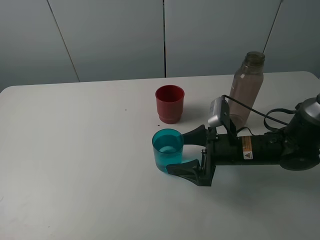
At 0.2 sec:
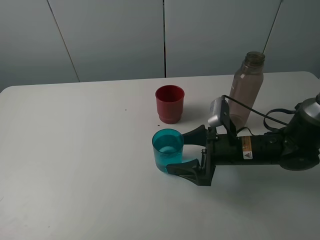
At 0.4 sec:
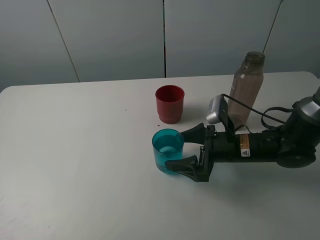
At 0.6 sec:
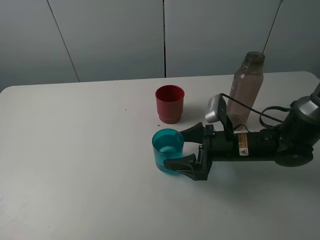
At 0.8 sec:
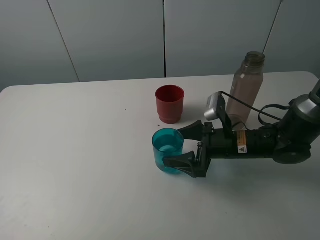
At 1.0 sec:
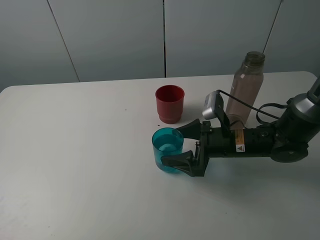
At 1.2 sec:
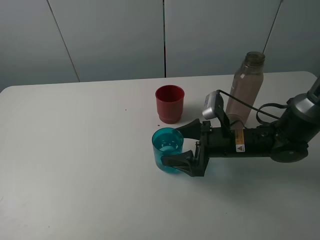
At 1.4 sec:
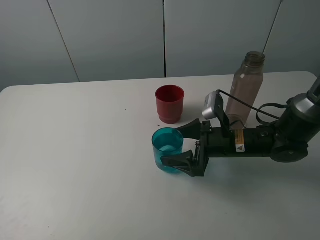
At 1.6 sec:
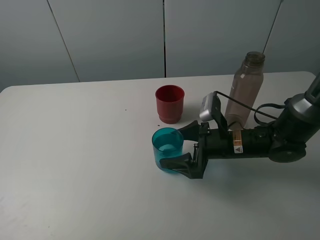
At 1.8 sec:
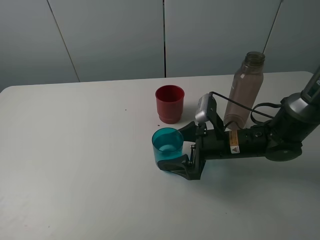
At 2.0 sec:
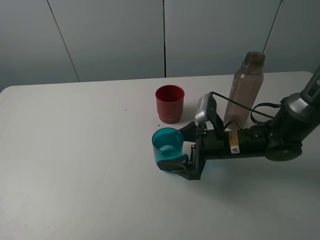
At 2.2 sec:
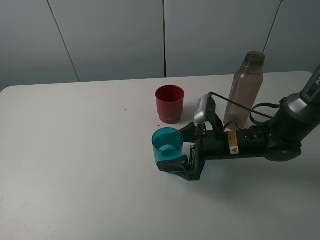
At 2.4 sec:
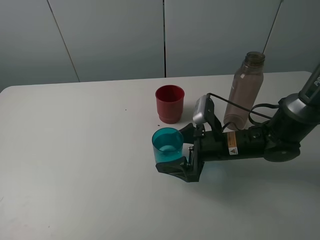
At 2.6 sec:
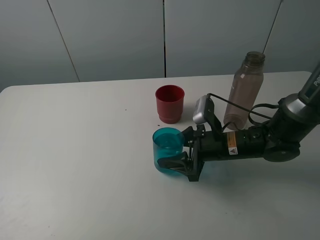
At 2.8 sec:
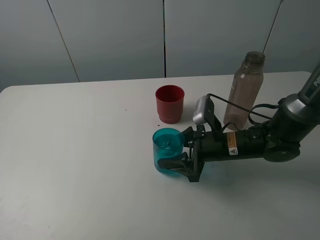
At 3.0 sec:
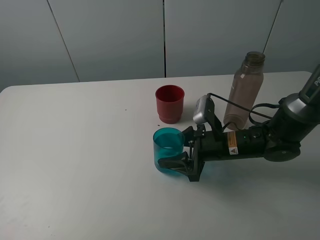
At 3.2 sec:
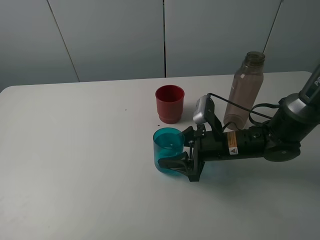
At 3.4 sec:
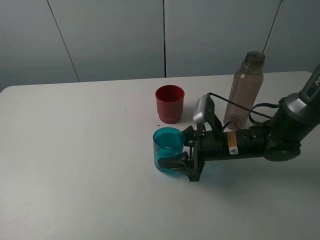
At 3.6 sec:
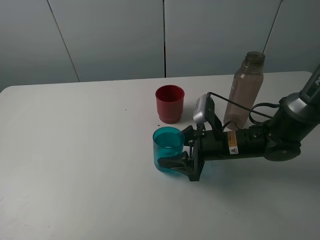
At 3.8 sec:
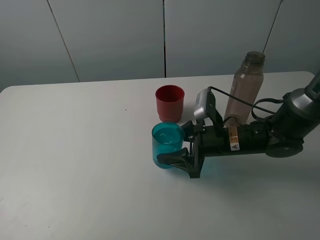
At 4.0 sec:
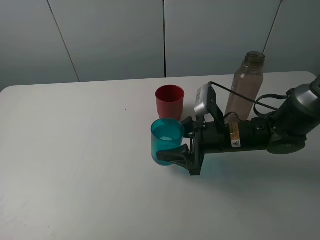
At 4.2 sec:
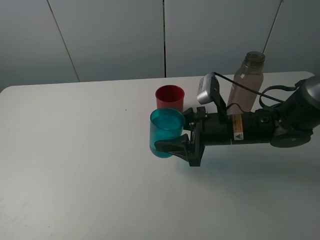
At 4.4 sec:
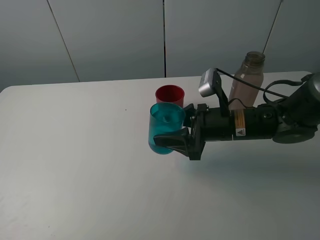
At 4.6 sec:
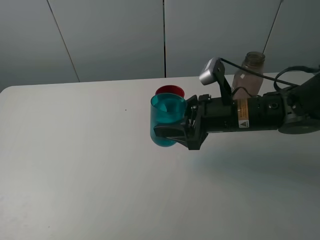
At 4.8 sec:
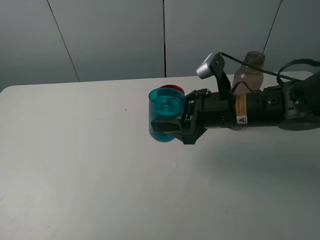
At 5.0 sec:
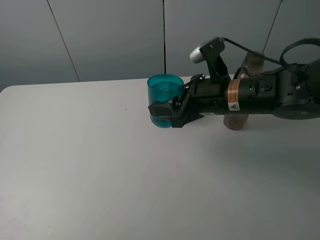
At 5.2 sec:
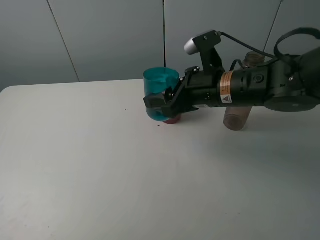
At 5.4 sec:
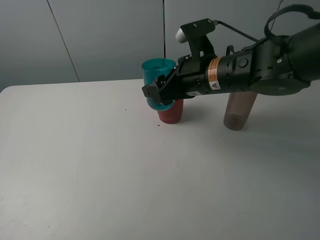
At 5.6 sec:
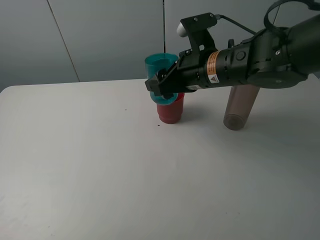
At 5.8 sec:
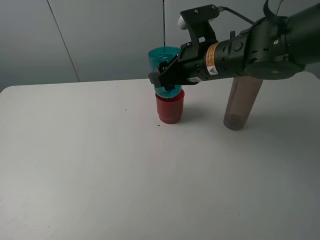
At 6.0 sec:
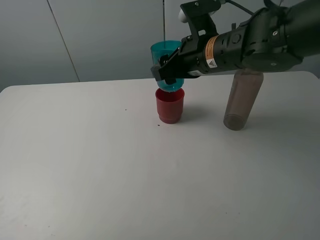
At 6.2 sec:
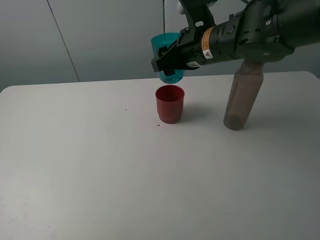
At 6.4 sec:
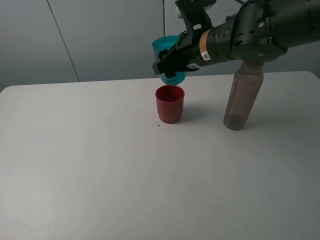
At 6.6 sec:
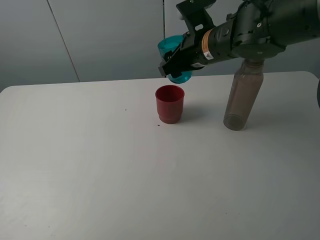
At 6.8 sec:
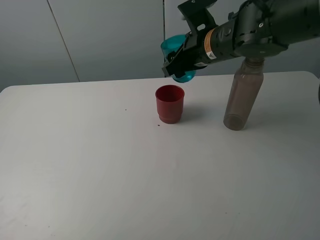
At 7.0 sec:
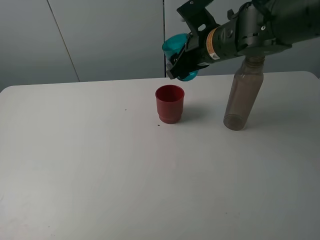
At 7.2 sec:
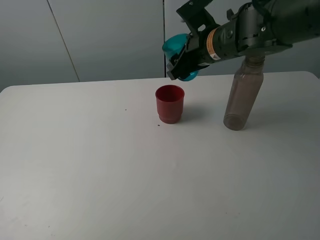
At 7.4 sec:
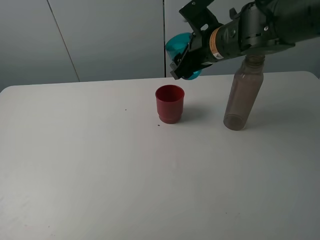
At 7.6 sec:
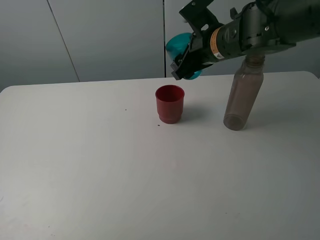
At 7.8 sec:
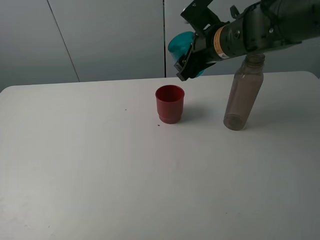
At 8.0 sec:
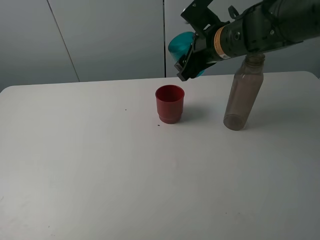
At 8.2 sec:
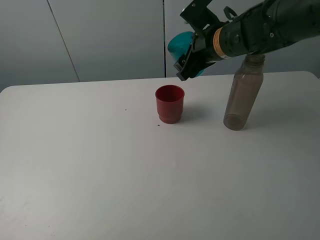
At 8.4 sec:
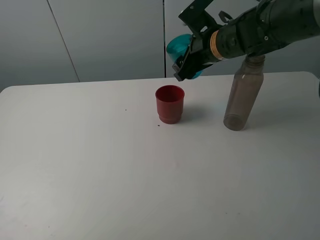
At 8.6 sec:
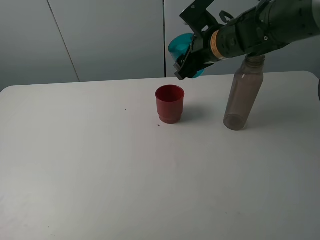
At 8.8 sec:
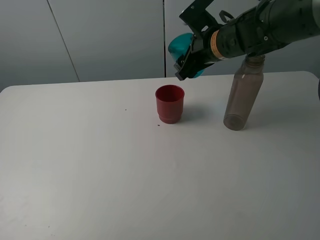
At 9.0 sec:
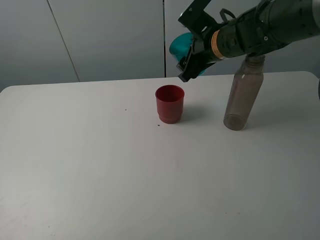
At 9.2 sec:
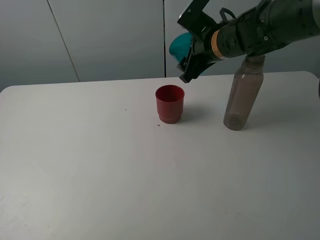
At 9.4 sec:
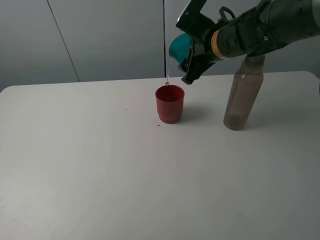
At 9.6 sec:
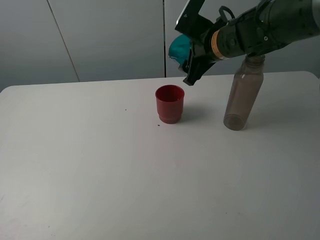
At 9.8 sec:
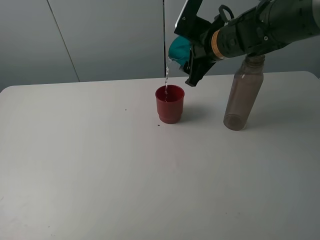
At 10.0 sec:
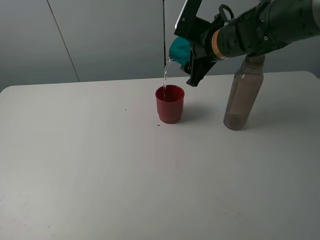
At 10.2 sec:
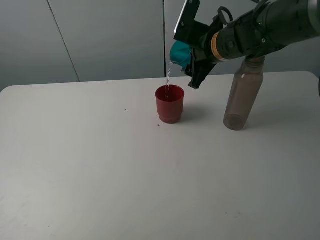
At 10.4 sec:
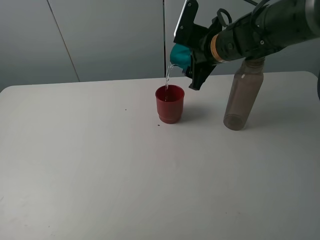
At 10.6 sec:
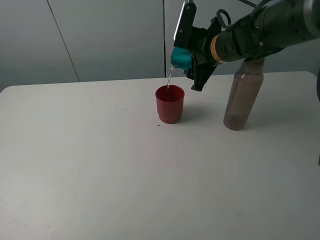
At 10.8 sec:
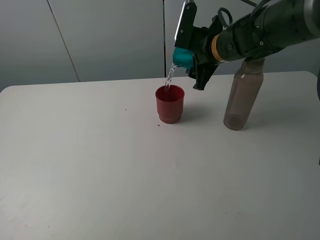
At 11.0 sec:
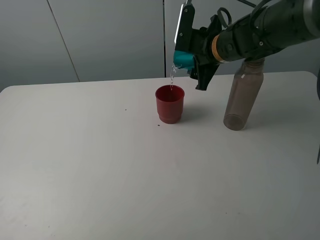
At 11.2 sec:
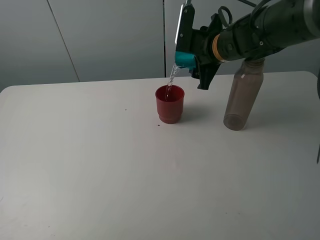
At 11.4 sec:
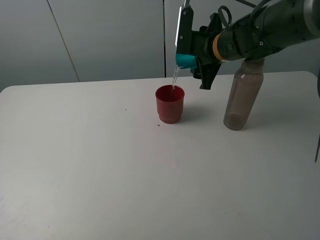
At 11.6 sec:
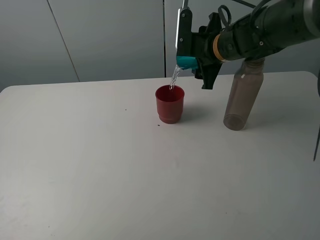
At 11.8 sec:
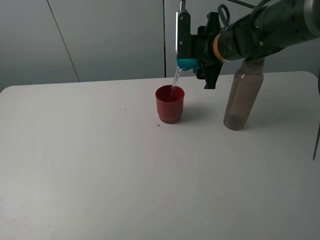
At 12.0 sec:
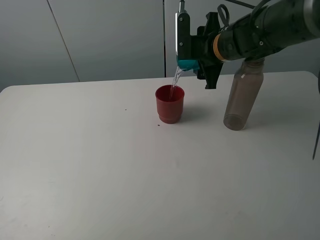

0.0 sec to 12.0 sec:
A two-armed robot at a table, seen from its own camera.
Task of the whole recording: pick up the bottle and pour water into the cup, then pick up the cup containing water and pour it into another cup.
Step, 0.0 sec to 2.8 sec: Grasp the blue cup with the right gripper.
0.0 sec to 1.6 sec: There are only small adjustments of the grippers.
1.6 sec to 3.0 sec: The right gripper closes.
3.0 sec to 4.4 sec: The right gripper goes some 5 cm upward.
4.4 sec to 6.0 sec: The right gripper goes approximately 10 cm upward and forward.
7.6 sec to 9.0 sec: The grippers make only small movements.

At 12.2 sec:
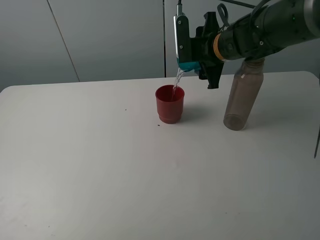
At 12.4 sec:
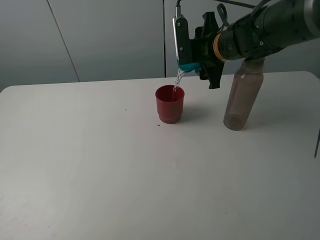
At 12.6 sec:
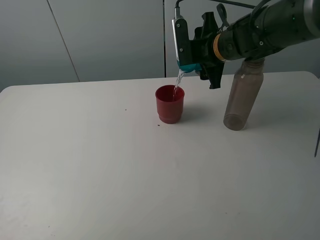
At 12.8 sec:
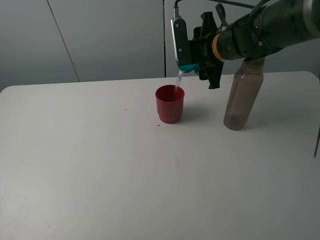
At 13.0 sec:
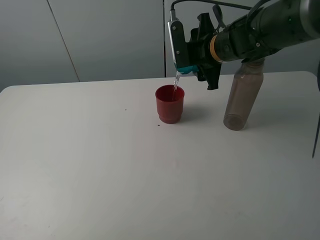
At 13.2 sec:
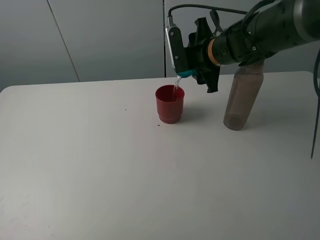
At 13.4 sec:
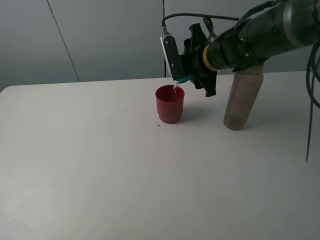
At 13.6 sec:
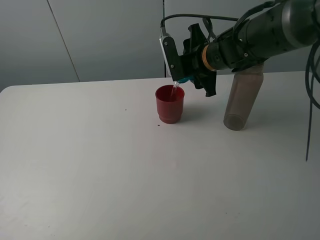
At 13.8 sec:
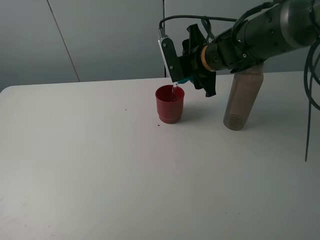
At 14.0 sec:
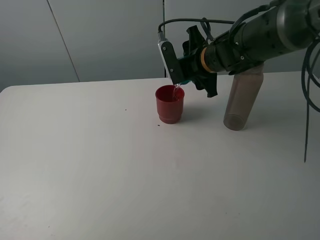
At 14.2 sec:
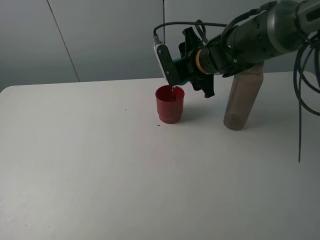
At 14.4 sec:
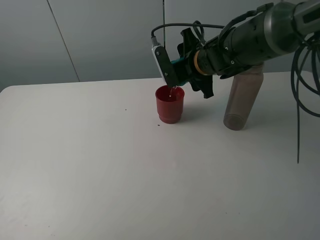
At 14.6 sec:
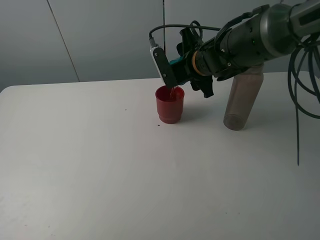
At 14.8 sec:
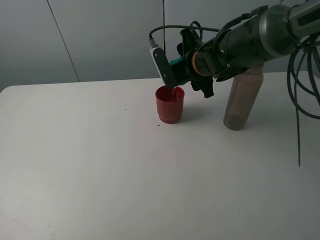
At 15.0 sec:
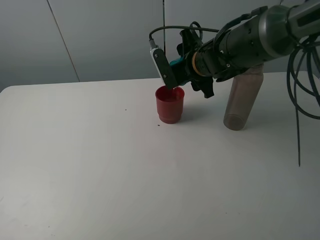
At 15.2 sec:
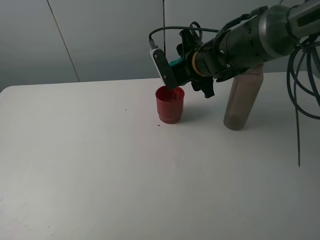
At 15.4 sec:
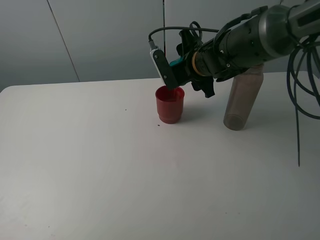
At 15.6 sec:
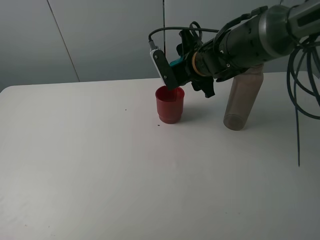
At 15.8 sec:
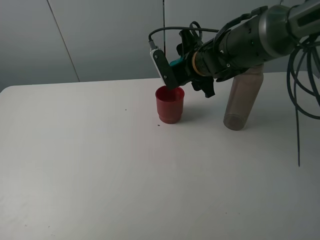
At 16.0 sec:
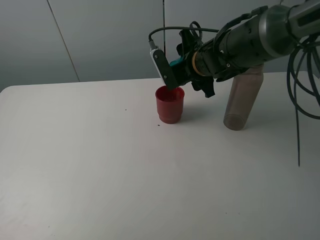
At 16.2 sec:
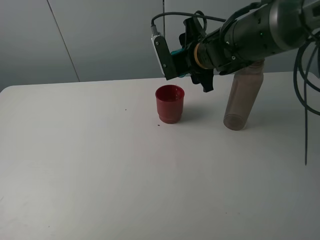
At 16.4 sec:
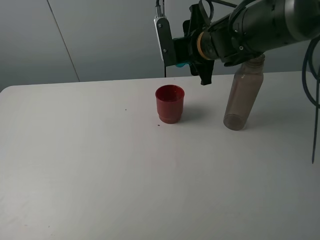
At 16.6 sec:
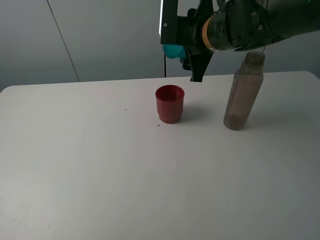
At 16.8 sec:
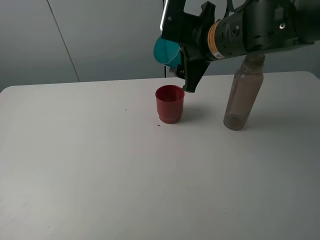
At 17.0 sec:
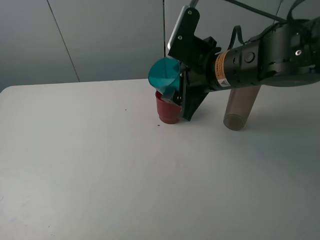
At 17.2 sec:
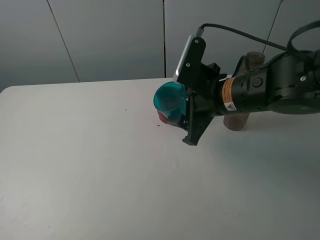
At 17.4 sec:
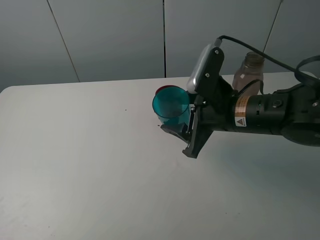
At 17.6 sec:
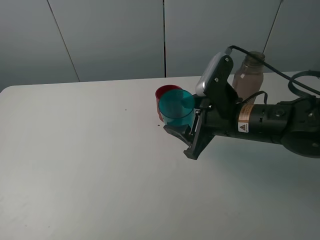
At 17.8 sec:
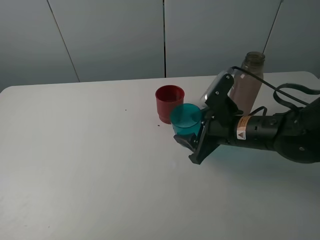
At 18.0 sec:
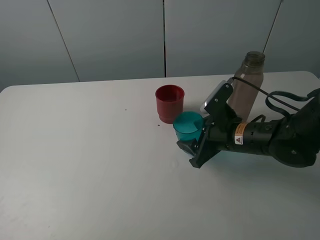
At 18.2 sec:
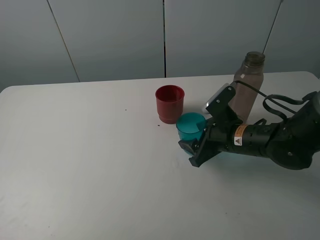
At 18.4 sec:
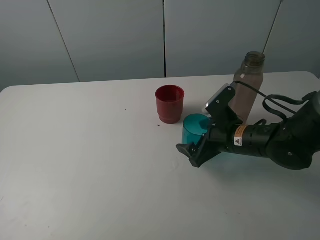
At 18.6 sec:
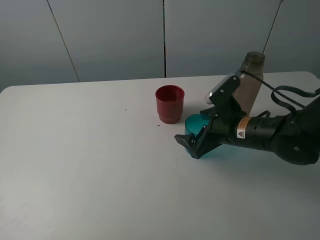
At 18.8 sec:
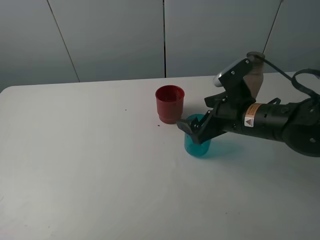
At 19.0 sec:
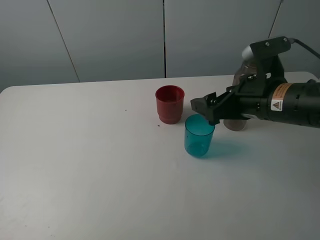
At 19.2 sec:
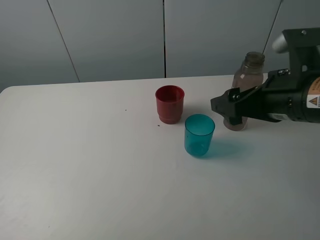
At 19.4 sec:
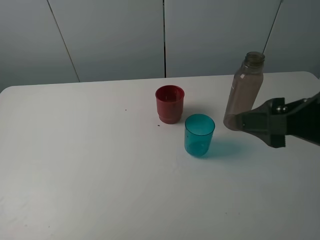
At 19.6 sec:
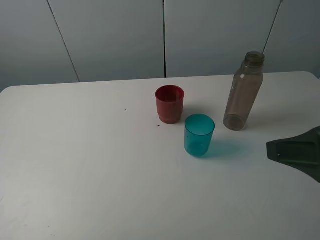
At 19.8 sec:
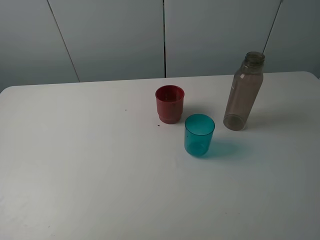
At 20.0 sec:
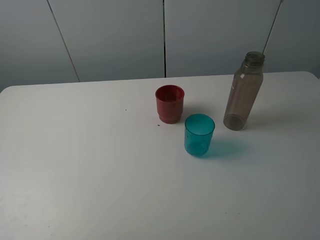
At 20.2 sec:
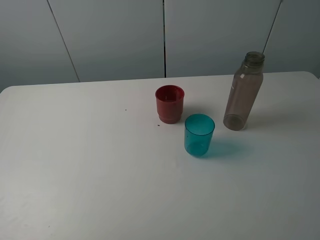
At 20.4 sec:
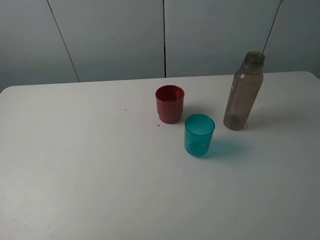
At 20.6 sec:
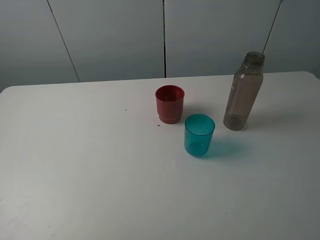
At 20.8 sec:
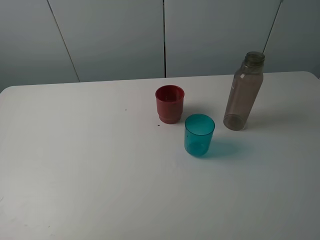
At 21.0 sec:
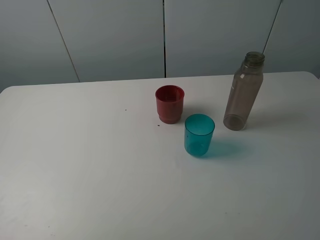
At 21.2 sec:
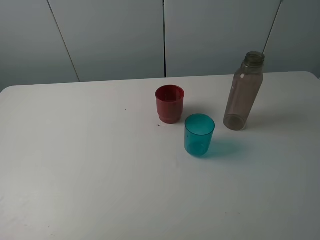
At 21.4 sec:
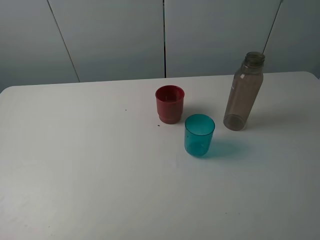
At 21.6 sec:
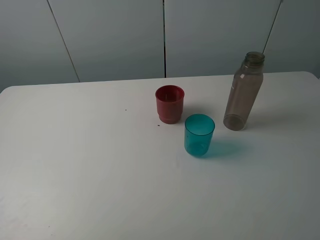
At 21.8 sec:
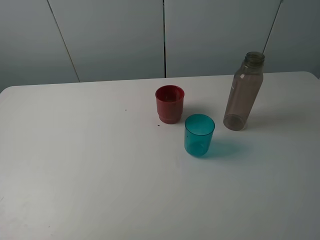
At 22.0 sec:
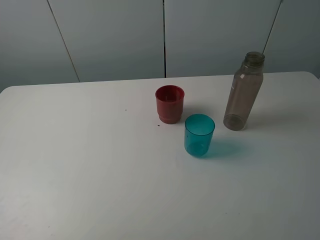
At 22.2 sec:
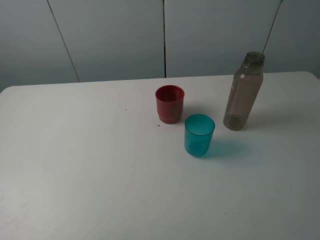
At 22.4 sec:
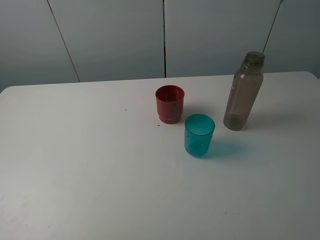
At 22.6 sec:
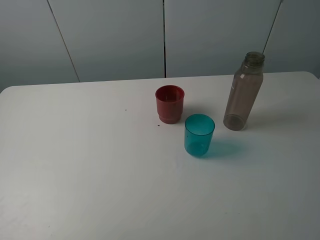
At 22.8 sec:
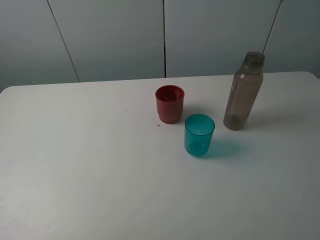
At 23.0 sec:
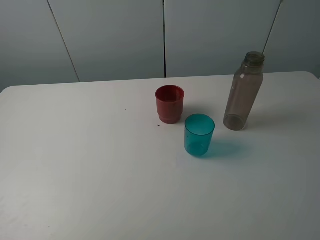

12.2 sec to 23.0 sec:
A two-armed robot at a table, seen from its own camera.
Task of the whole recording: pick up the bottle and pour water into the cup, then pick up the cup containing water and pour it into another cup.
Step, 12.2 sec to 16.2 sec: Pour water from blue cup to red cup with the right gripper.
Step, 16.4 sec to 18.6 sec: Place the blue cup with the right gripper.
12.2 sec to 13.8 sec: The grippers make only small movements.
13.8 sec to 15.2 sec: The grippers make only small movements.
15.2 sec to 16.8 sec: The right gripper travels backward and upward by some 10 cm.
16.8 sec to 18.4 sec: The right gripper is displaced downward by about 15 cm, and opens its fingers.
18.4 sec to 20.0 sec: The right gripper goes approximately 40 cm upward, backward and to the right.
21.4 sec to 23.0 sec: Neither gripper changes place.
